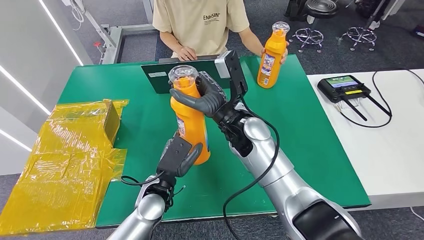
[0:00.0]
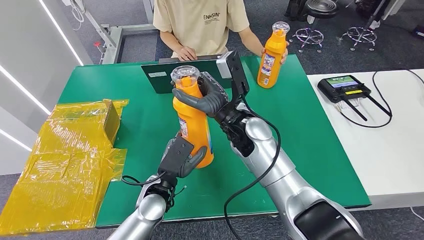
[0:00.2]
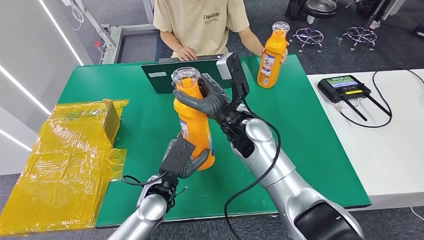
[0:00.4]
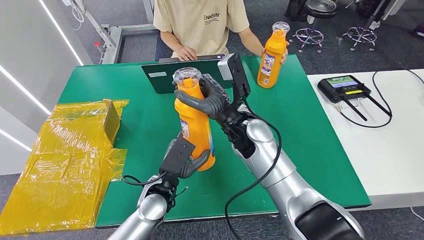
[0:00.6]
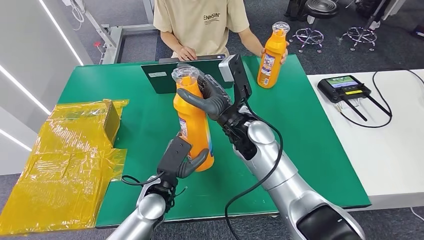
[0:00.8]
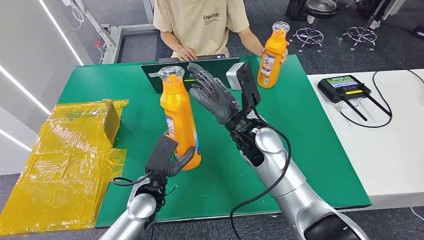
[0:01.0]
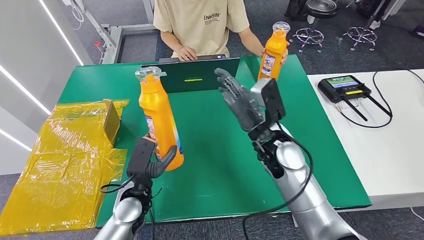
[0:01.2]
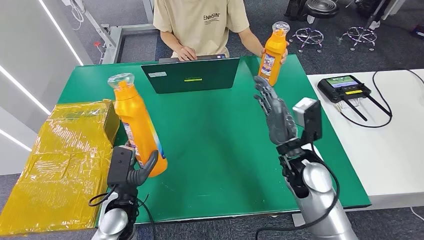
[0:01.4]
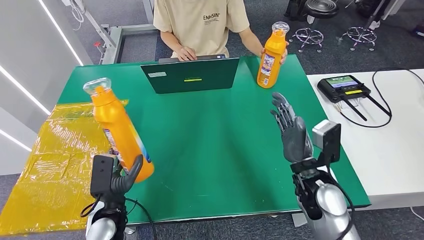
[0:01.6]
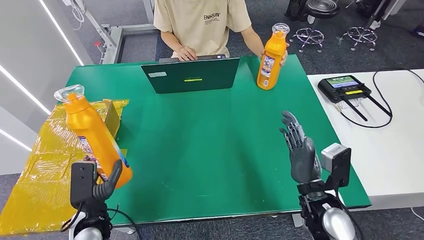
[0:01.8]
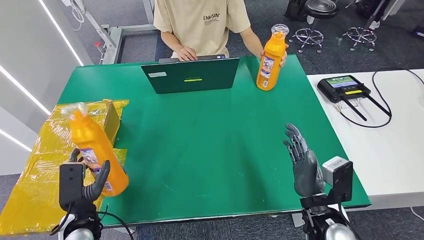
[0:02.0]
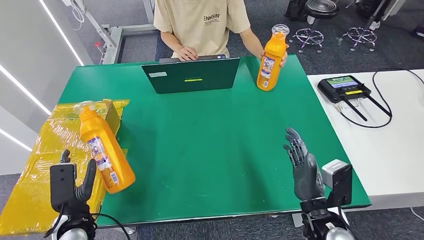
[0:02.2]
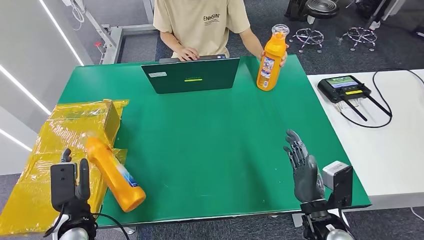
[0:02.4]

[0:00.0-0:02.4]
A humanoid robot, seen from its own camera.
Step, 0:00.0 to 0:02.2: Turn the bottle to the front side.
0:00.0 to 0:01.2: The right hand goes approximately 10 cm to the right; the left hand goes about 5 cm to the left.
